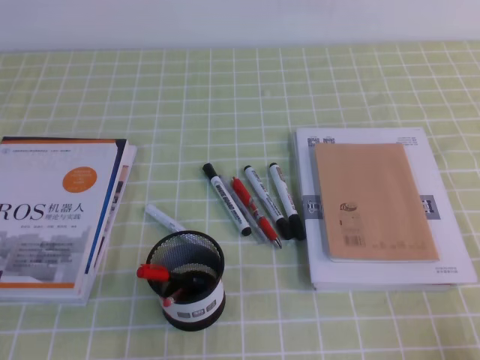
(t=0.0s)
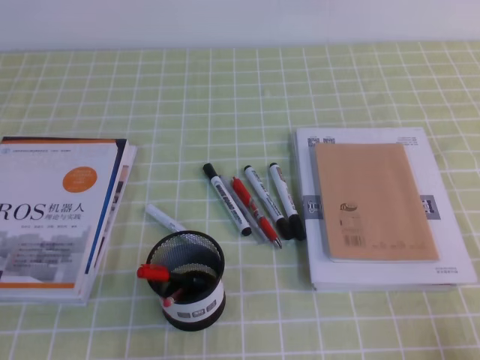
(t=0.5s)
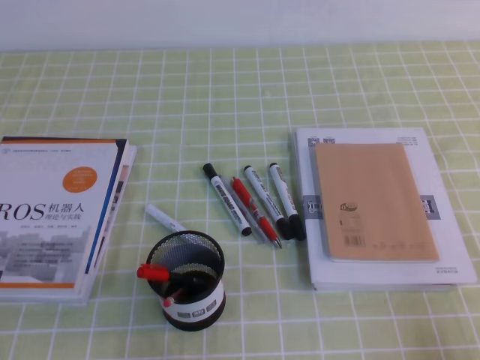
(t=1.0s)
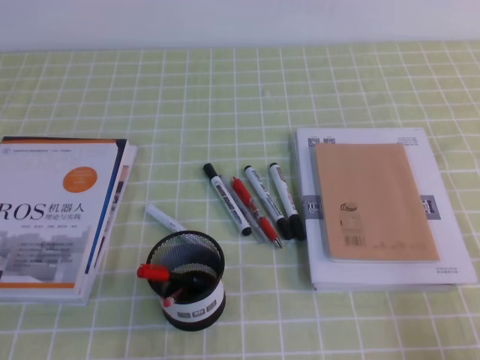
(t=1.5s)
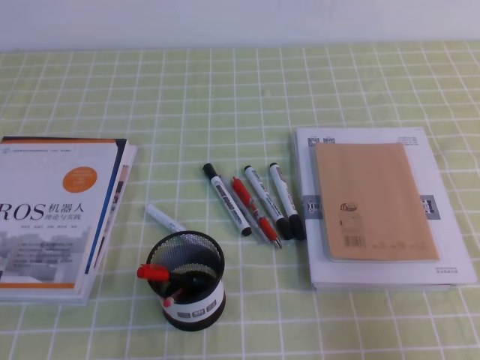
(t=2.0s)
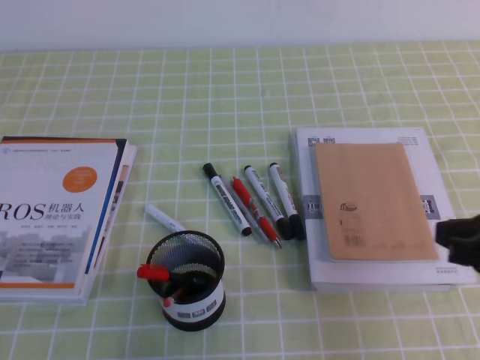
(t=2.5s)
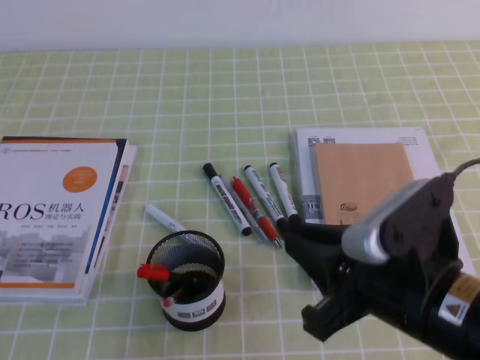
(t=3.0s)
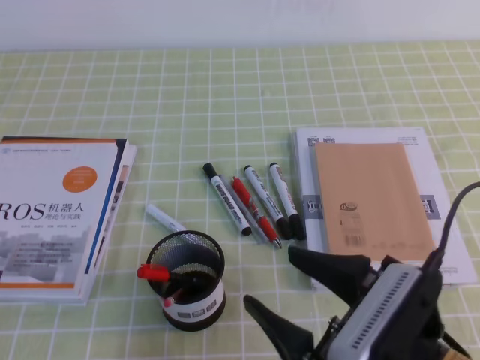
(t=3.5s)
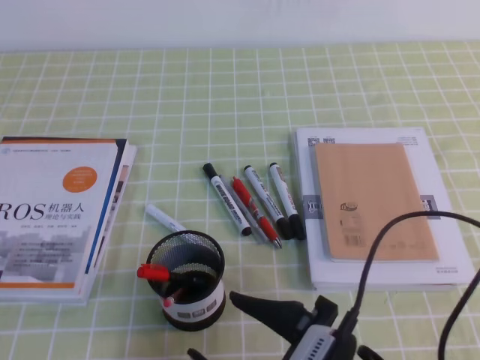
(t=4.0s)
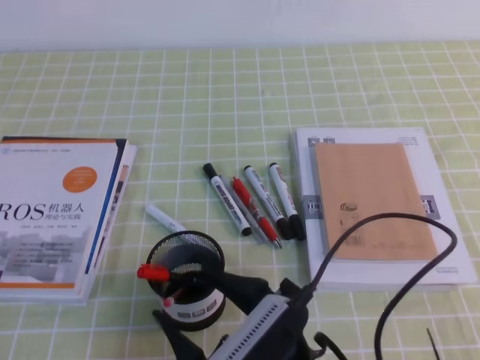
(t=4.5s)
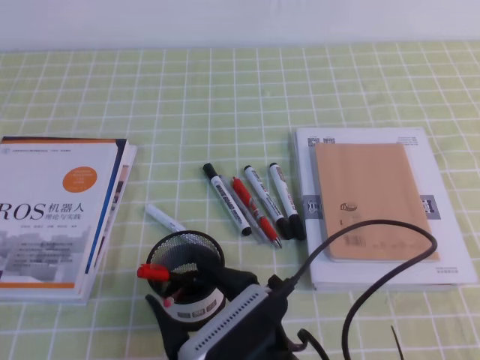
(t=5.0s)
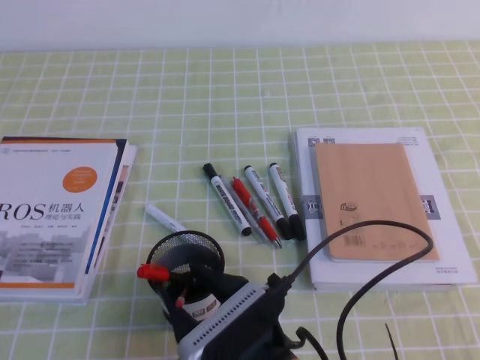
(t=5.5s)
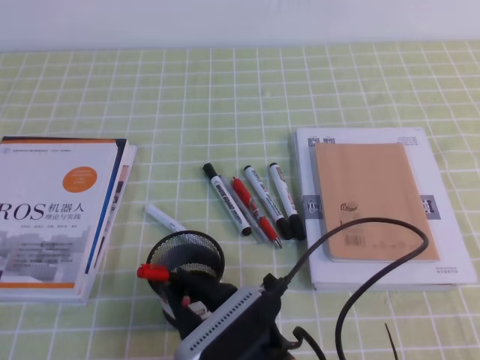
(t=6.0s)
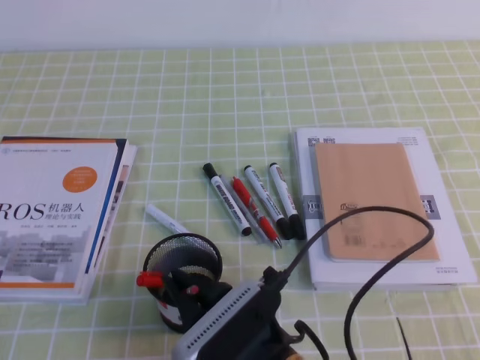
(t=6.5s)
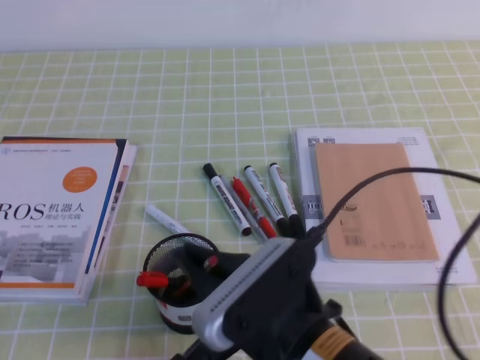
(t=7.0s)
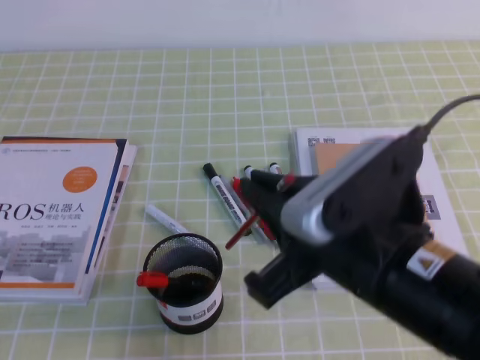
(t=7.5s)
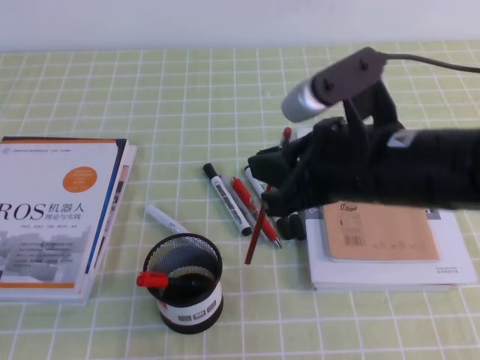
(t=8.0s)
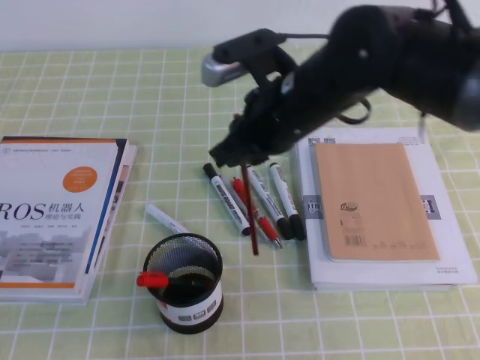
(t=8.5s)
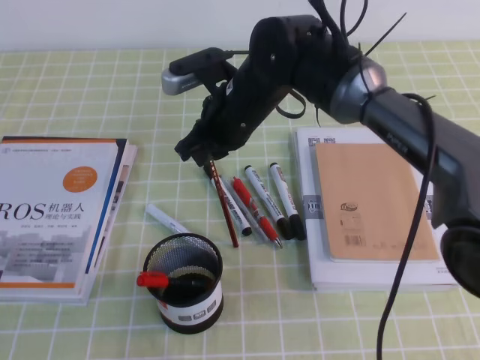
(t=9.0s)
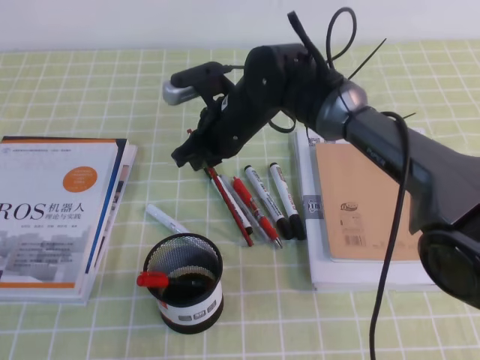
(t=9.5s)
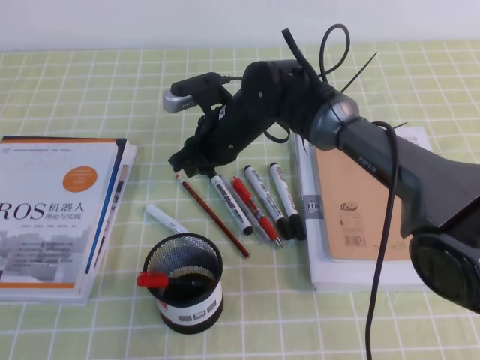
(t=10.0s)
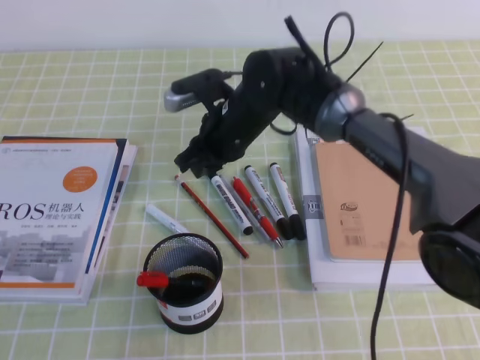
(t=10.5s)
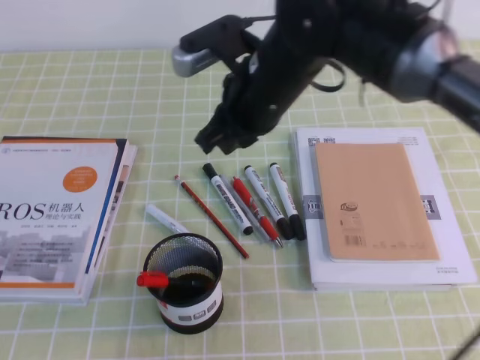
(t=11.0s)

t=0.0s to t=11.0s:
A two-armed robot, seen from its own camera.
t=0.0s to t=2.0s: The right gripper travels upward by roughly 10 cm.
t=2.0s to t=3.5s: The right gripper goes some 15 cm to the left, and opens.
t=3.5s to t=5.5s: The right gripper travels to the left and downward by approximately 15 cm.
t=5.5s to t=7.5s: The right gripper goes approximately 15 cm upward and to the right, and closes.
t=7.5s to t=9.0s: The right gripper is displaced forward by roughly 25 cm.
t=9.0s to t=11.0s: The right gripper is displaced upward by roughly 5 cm.

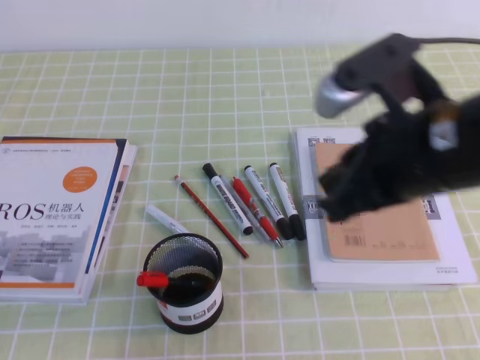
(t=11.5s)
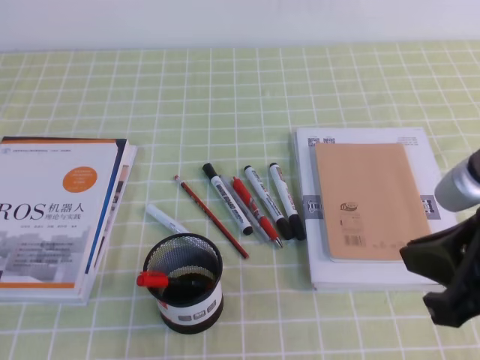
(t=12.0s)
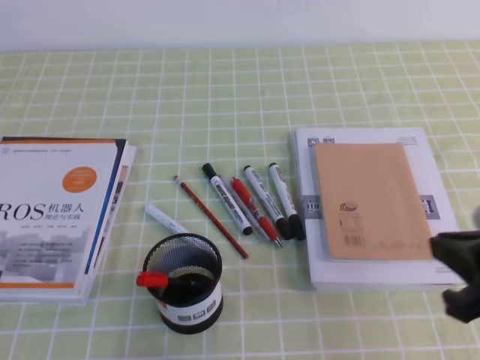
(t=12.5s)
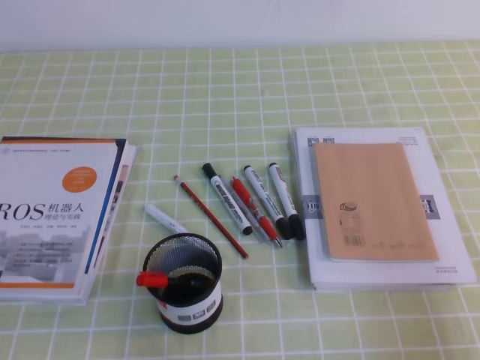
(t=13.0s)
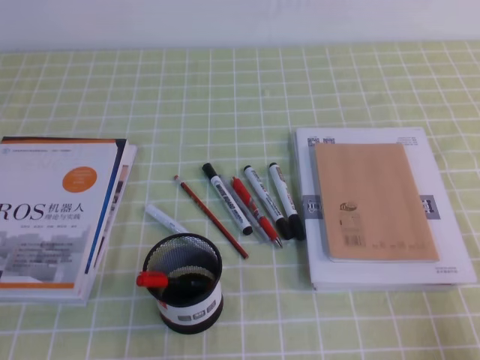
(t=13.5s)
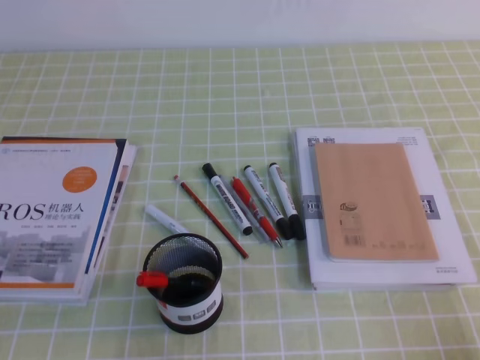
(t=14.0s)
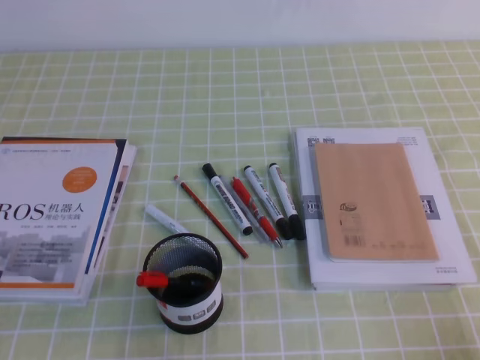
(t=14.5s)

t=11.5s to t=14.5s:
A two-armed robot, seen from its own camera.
Step, t=11.5s to t=14.5s: Pick up the pen from the pen holder.
t=11.5s to t=13.0s: The right gripper travels to the right, downward and backward by about 25 cm.

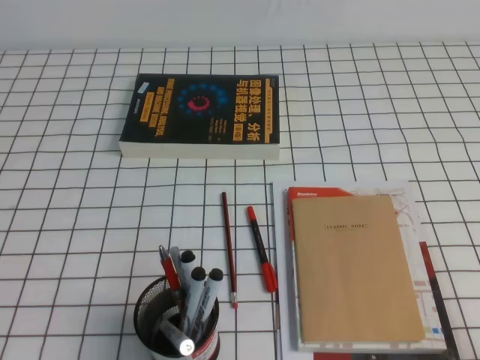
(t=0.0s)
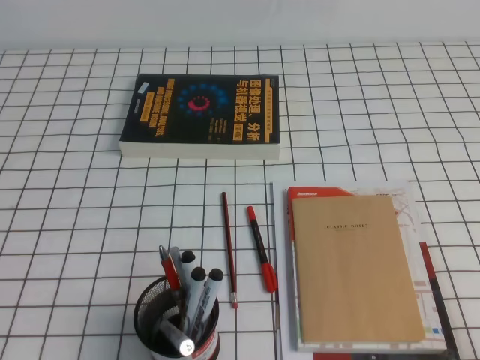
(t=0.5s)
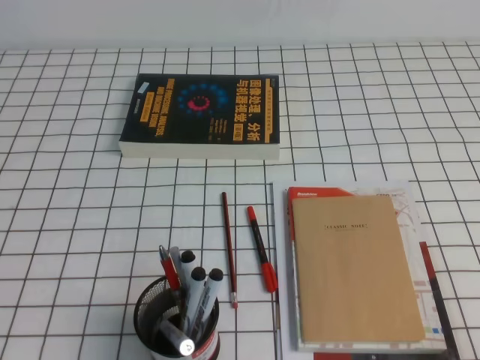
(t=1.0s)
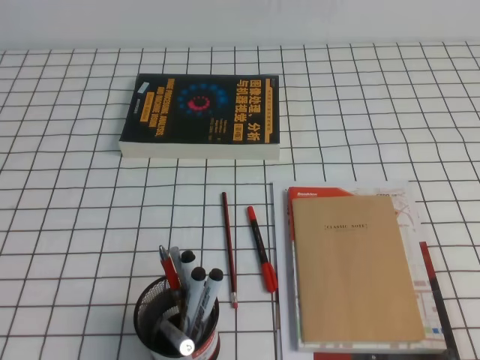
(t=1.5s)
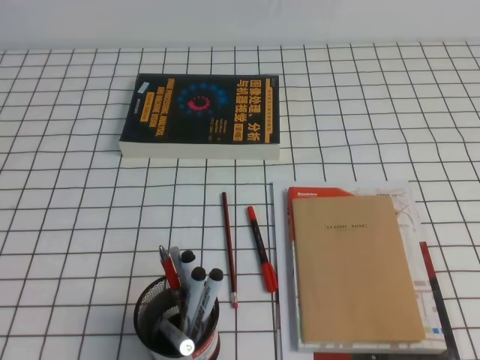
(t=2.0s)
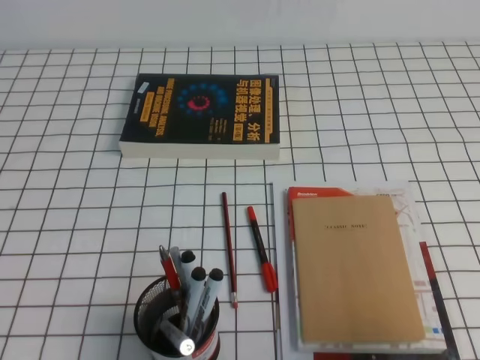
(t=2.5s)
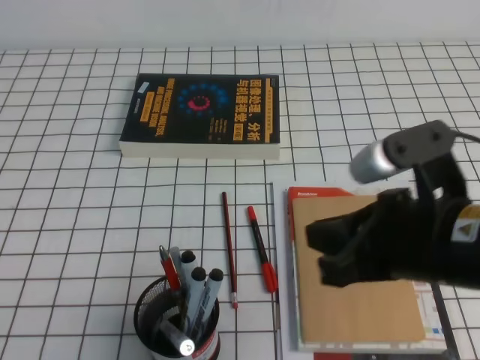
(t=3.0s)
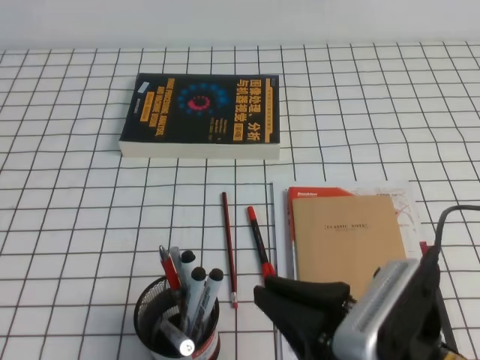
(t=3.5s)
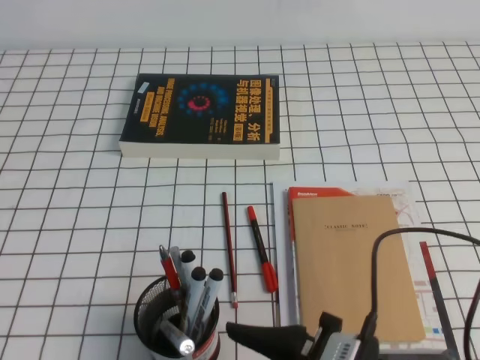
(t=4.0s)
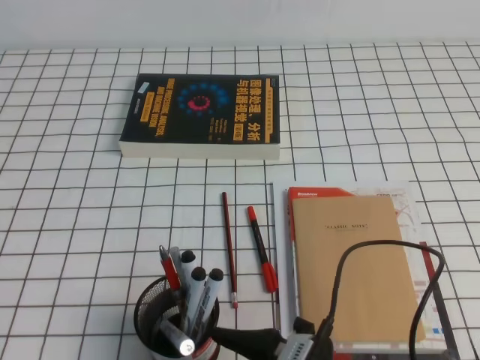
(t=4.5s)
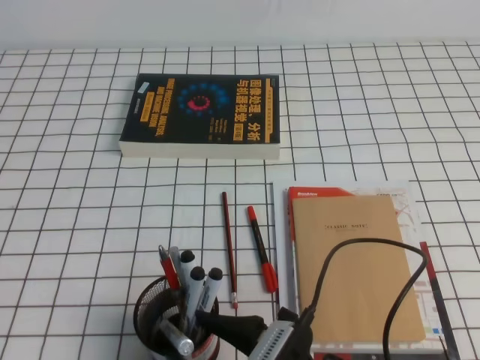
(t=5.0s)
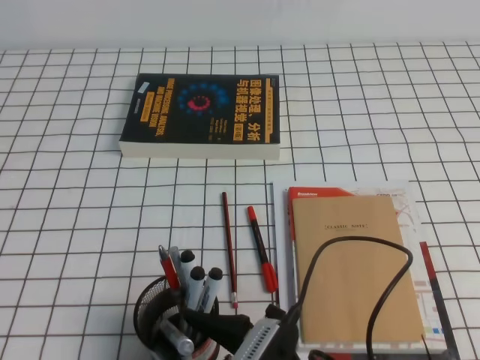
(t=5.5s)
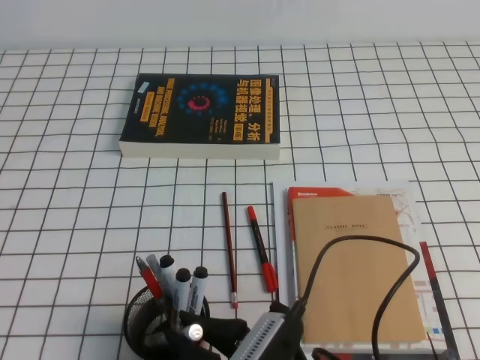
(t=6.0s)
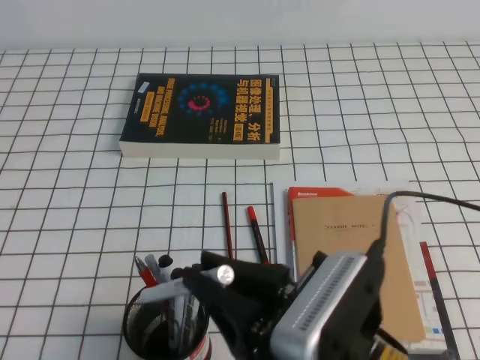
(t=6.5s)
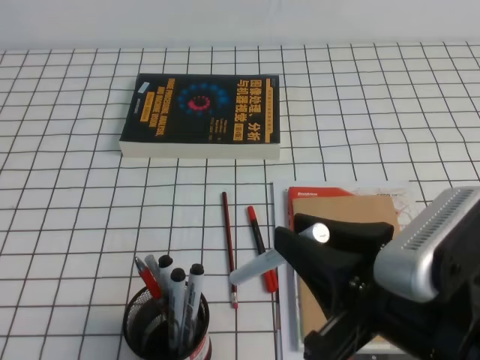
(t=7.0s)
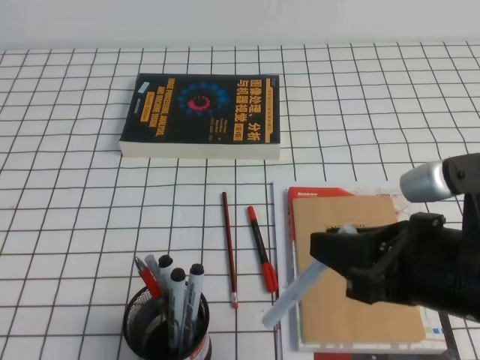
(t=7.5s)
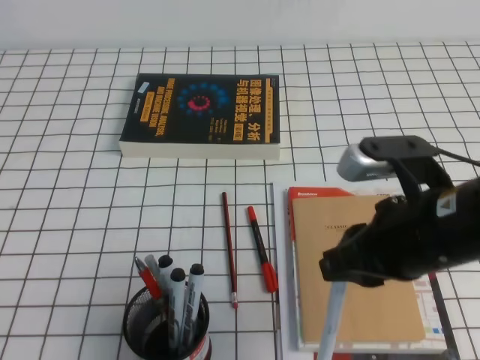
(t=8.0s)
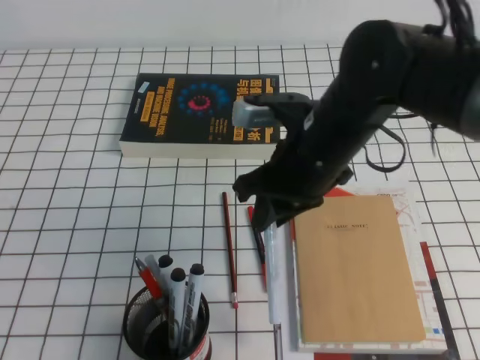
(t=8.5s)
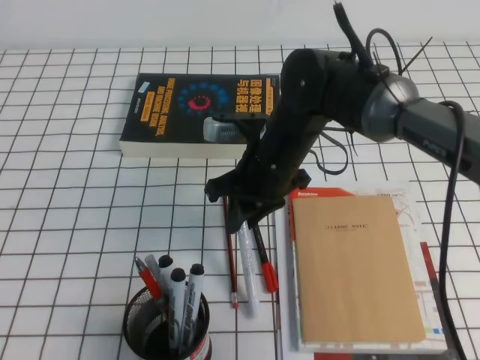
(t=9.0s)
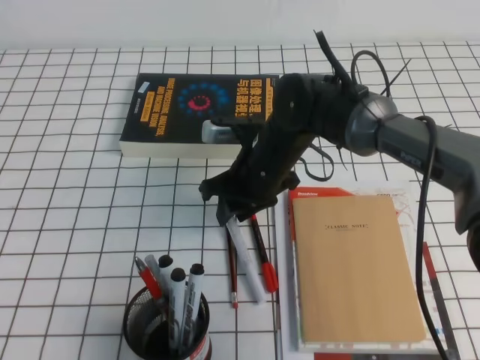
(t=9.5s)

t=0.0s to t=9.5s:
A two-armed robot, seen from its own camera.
t=2.0s to t=4.0s: The right gripper moves to the left, approximately 20 cm, and opens up.
t=4.0s to t=5.5s: The right gripper travels to the left by roughly 5 cm.
t=5.5s to t=7.5s: The right gripper heads upward and to the right, covering about 20 cm, and closes up.
t=7.5s to t=9.5s: The right gripper travels forward, to the left and downward by approximately 30 cm.

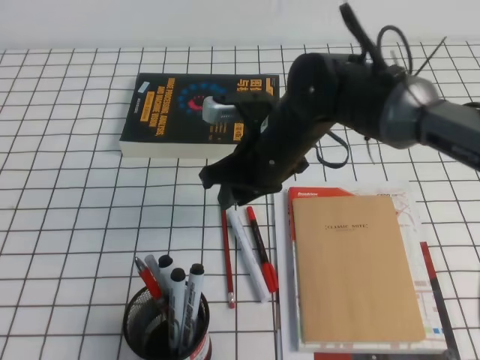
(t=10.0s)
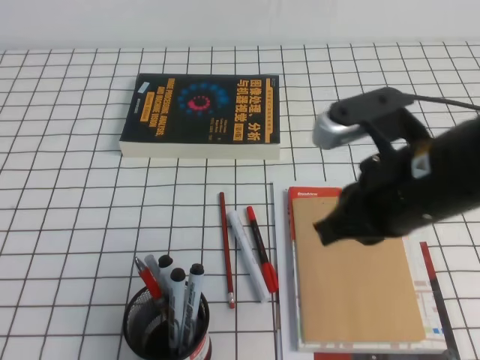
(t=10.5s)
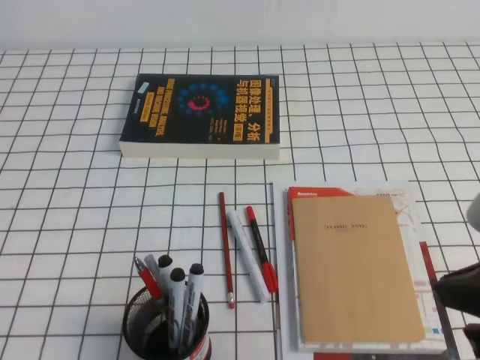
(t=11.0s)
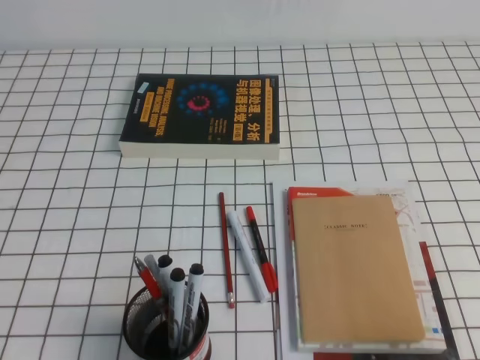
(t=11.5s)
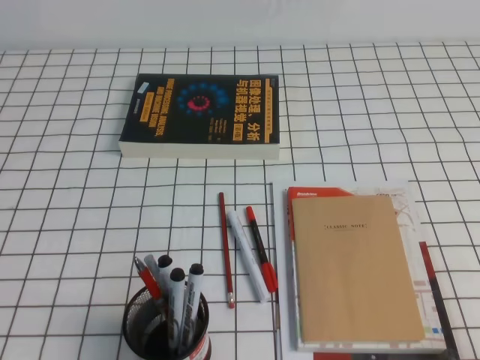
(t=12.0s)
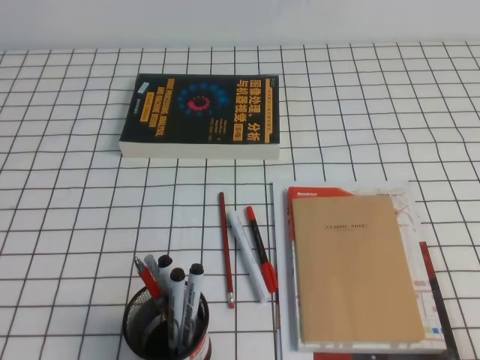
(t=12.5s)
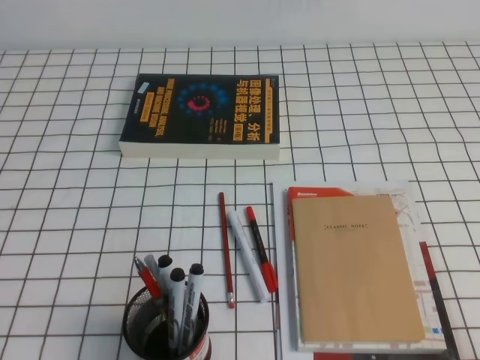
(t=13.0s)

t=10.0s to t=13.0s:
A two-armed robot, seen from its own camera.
Step, t=10.0s to t=13.0s: Pick up the pen from the pen holder.
t=10.0s to t=11.5s: The right gripper travels backward and to the right by some 35 cm, and closes up.
t=11.5s to t=13.0s: The right gripper is displaced downward by approximately 10 cm.
